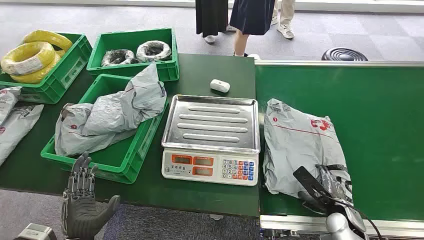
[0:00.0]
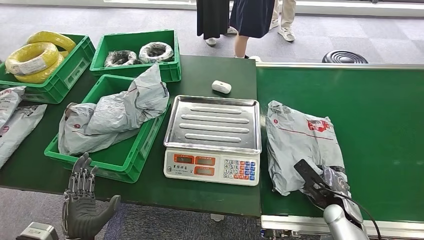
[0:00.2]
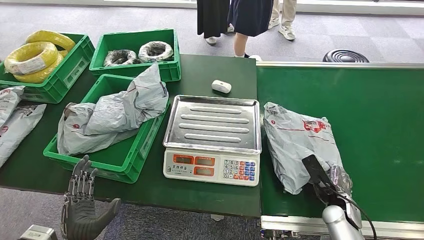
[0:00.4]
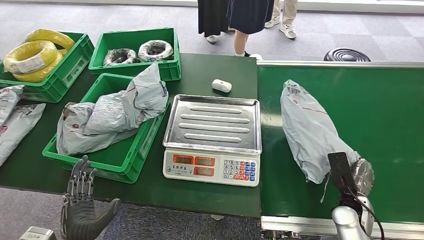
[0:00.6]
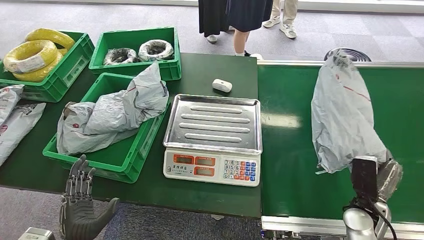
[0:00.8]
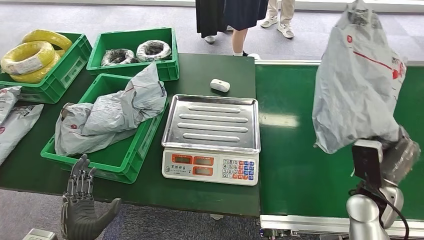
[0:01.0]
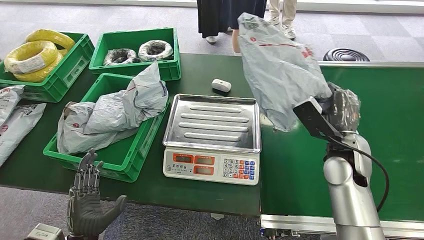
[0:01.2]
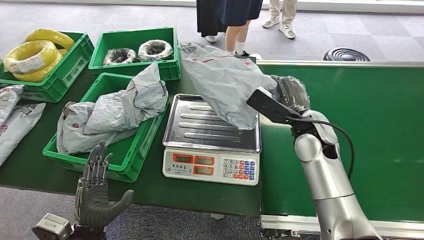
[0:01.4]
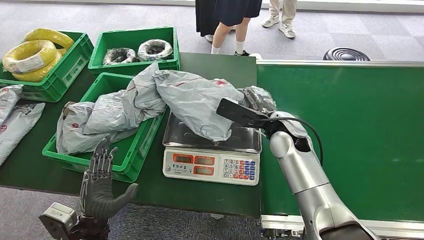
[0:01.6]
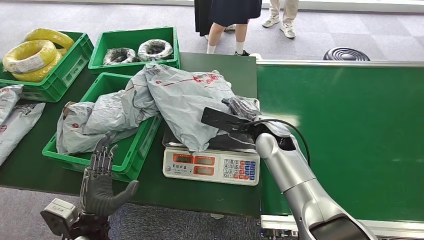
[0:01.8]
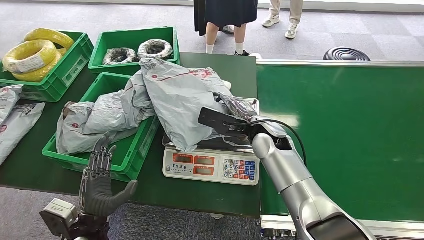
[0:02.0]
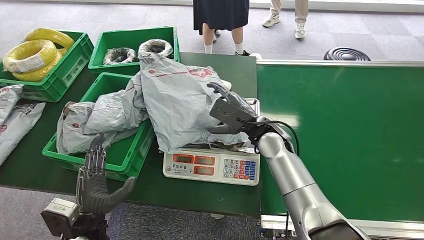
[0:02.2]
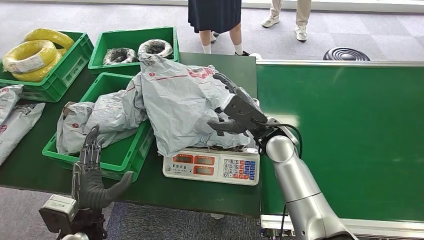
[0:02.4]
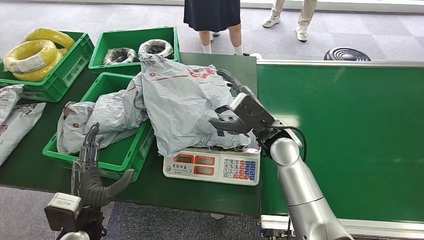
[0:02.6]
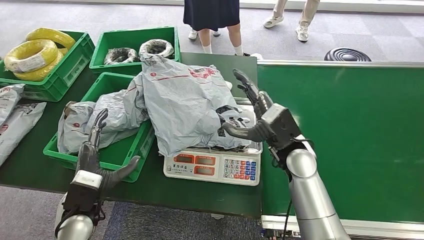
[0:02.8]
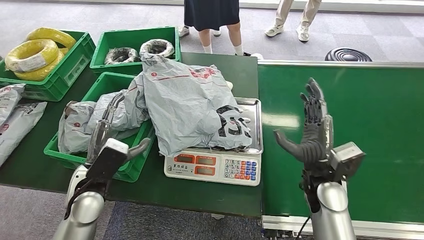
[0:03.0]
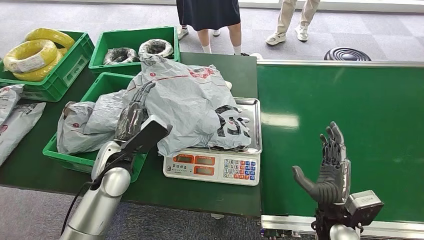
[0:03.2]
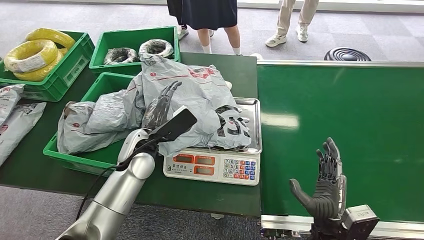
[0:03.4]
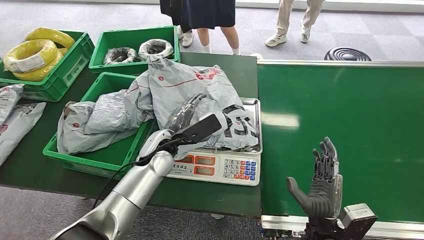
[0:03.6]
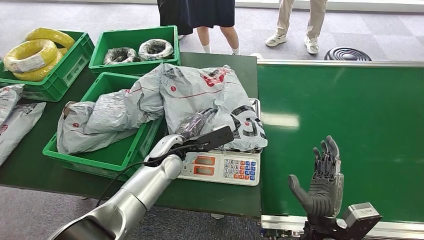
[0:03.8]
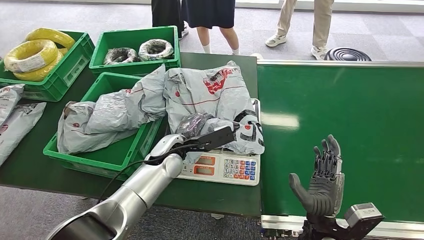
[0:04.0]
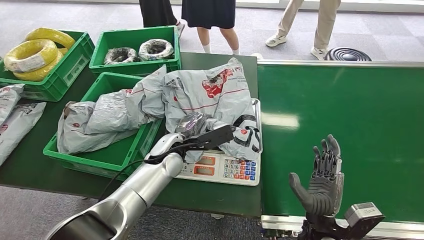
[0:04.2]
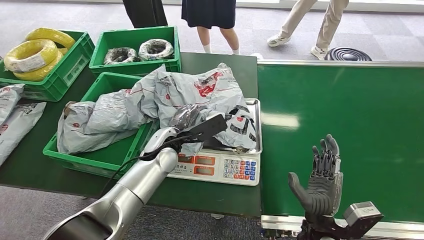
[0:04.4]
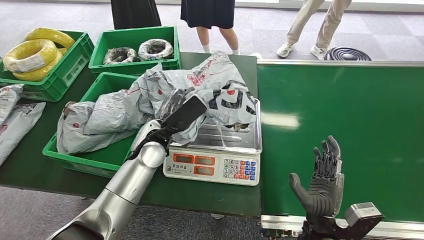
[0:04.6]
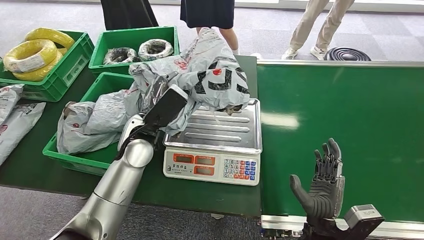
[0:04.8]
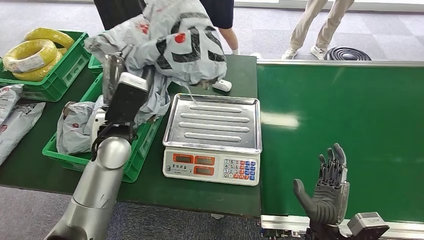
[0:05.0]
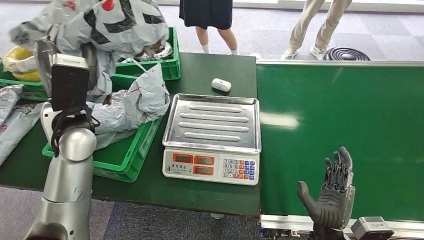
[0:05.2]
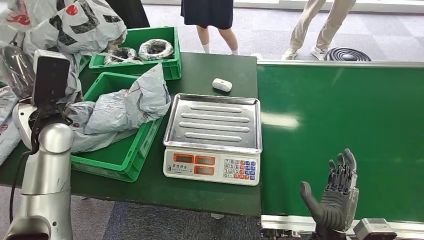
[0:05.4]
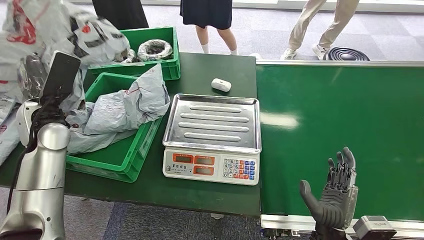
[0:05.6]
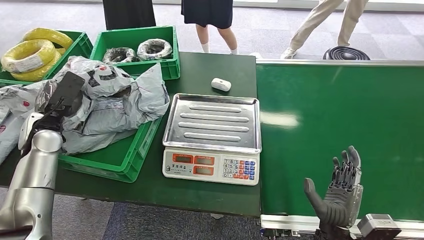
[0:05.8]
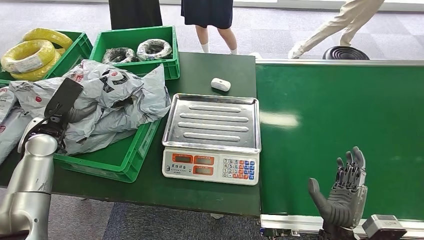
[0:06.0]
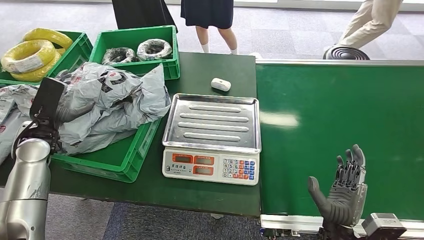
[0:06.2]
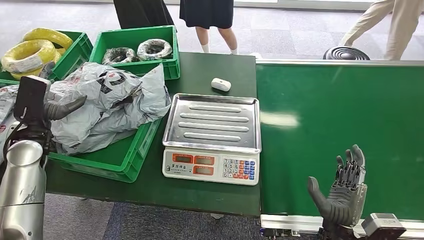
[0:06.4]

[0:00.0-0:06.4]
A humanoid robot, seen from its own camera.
Step, 0:00.0 to 0:01.0: Pick up the package from the conveyor belt.
Step, 0:01.2 to 0:02.0: Place the package onto the inbound machine.
Step, 0:02.2 to 0:05.0: Pick up the package from the inbound machine.
Step, 0:05.2 to 0:06.2: Place the package into the parcel locker.
